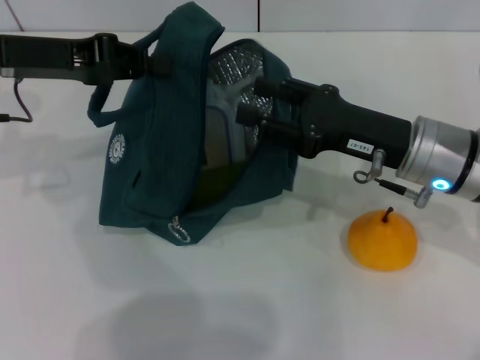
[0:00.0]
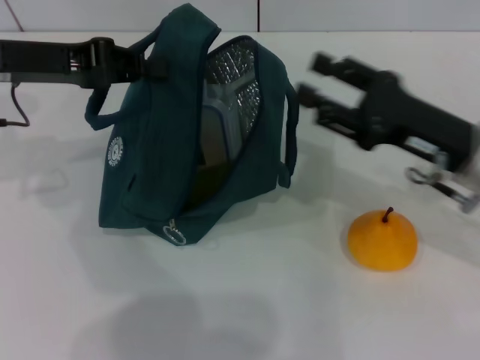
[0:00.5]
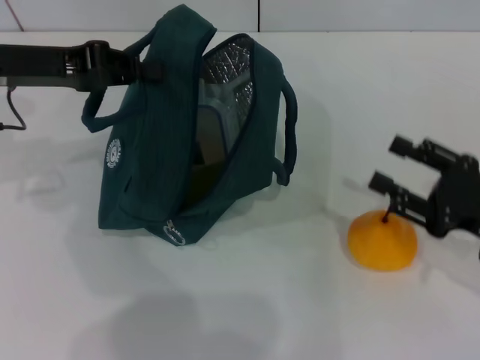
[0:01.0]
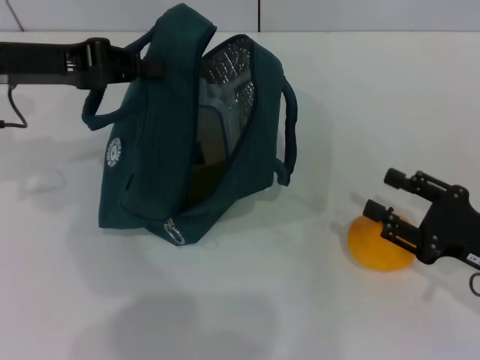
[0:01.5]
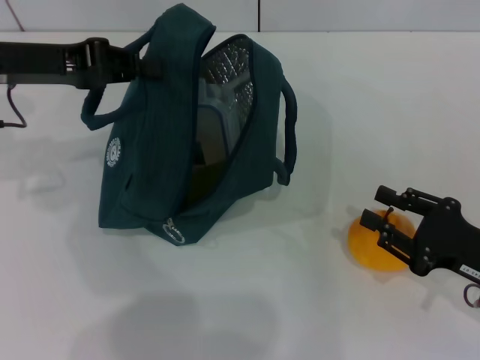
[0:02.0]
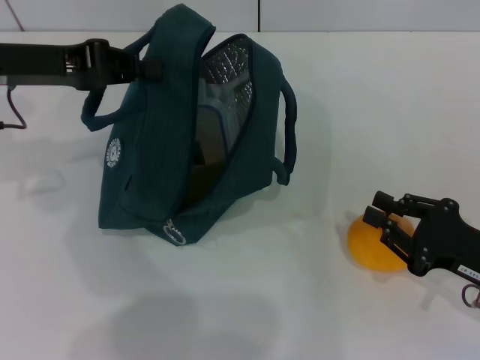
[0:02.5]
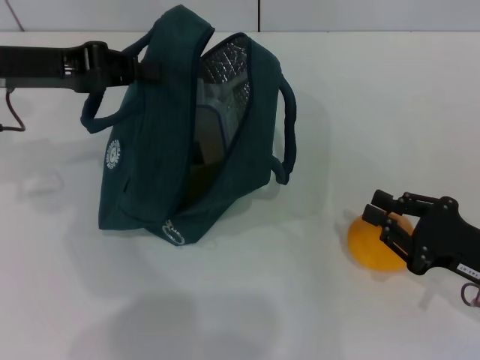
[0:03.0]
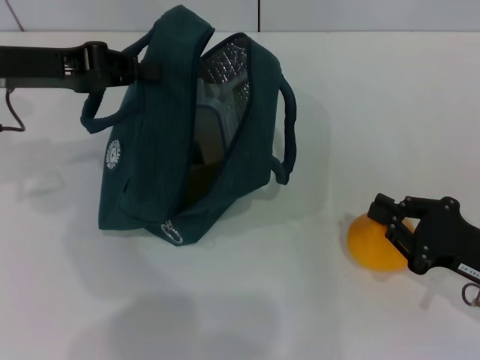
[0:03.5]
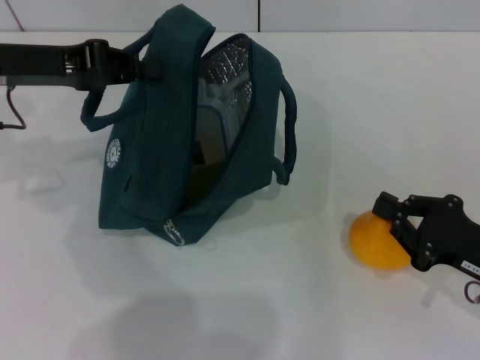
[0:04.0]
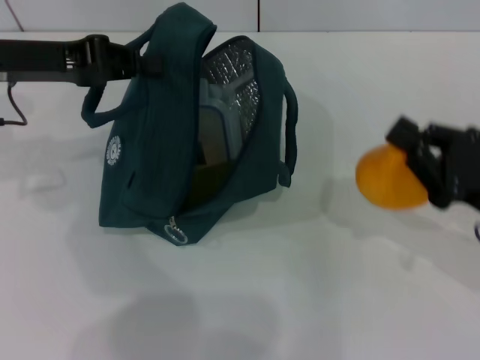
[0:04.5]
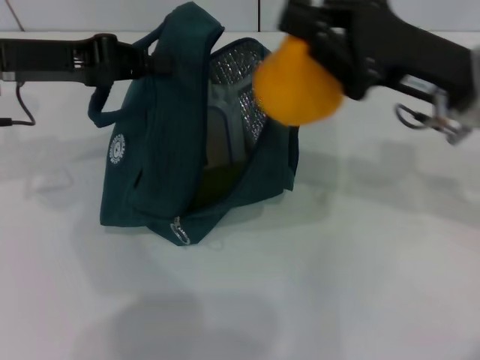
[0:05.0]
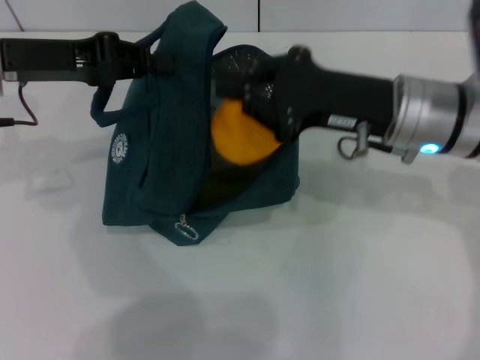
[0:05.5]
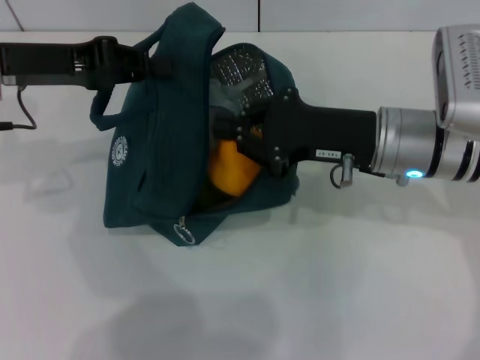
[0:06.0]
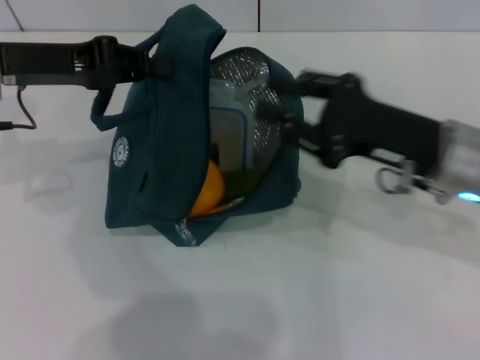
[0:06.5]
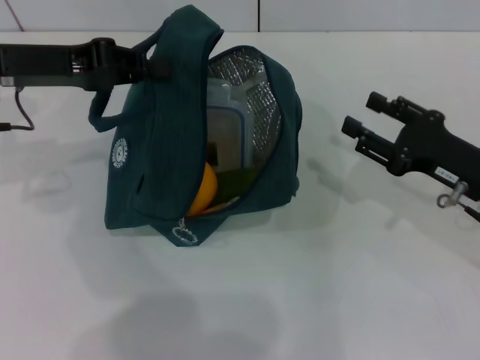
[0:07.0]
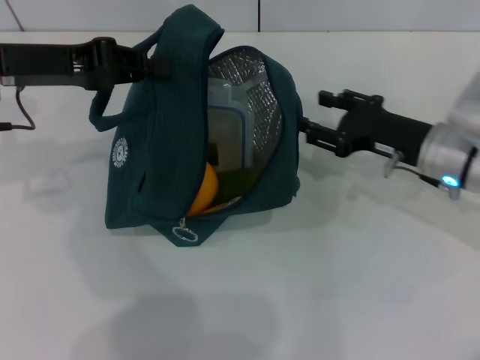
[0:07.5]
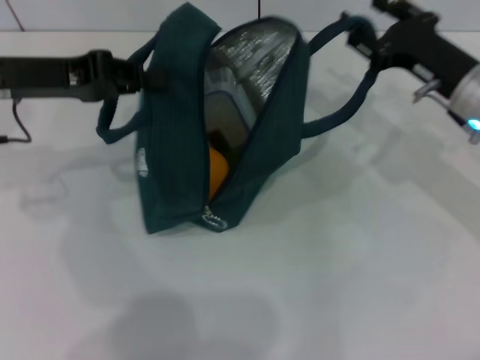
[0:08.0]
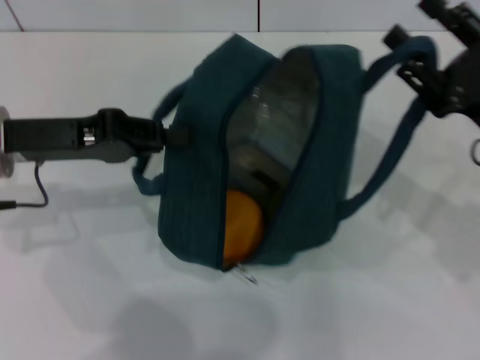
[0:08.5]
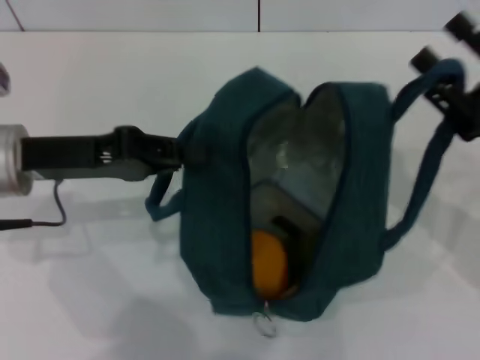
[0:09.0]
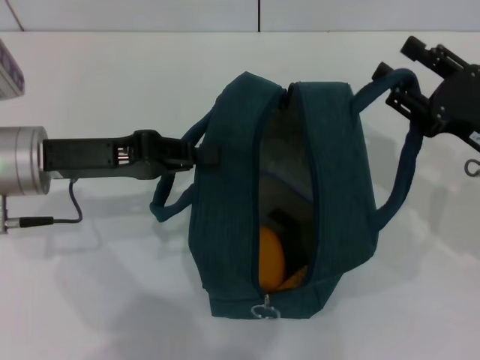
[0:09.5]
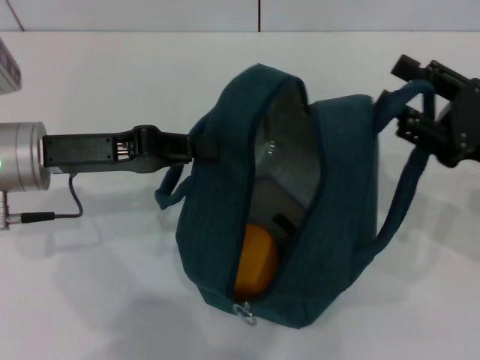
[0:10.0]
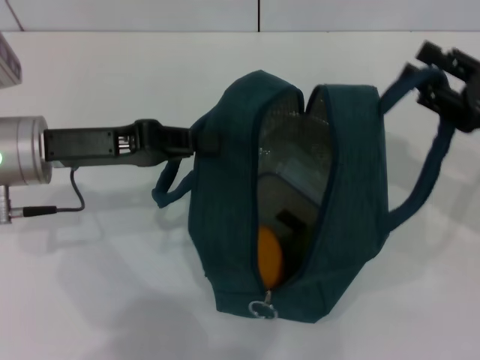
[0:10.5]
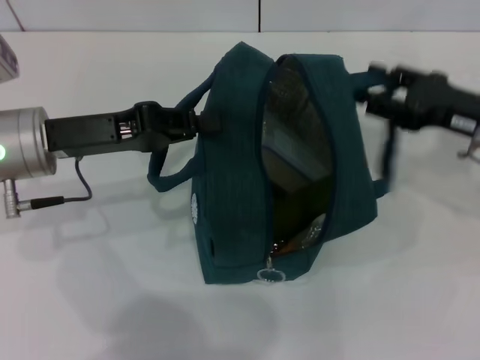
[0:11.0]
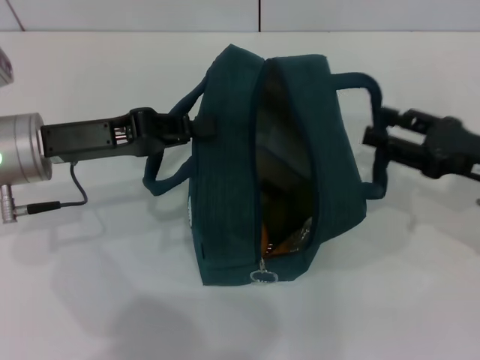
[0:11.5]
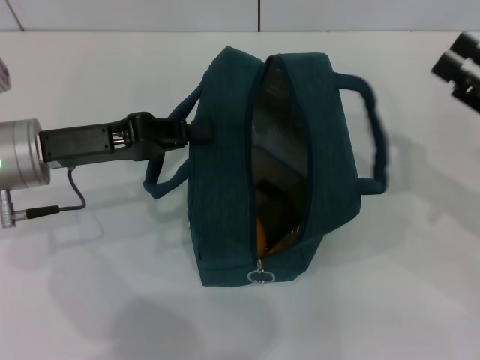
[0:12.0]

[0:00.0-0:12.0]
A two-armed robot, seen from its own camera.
Step, 0.0 to 3.5 s: Grab the pear with your right hand.
Step, 6.5 to 11.5 s: Hold the lunch bag with your right hand.
0.0 to 2.0 s: The right gripper shifts approximately 15 cm to the right, backward and downward.
2.0 to 4.0 s: The right gripper closes up.
4.0 to 6.0 s: The right gripper goes roughly 20 cm to the left, forward and upward.
6.0 to 8.0 s: The right gripper is displaced to the right by about 10 cm, and opens up.
8.0 to 10.0 s: The left gripper ends up about 5 cm from where it was. Meanwhile the right gripper moves backward, about 10 cm.

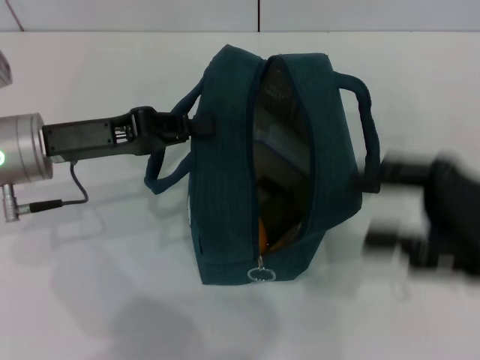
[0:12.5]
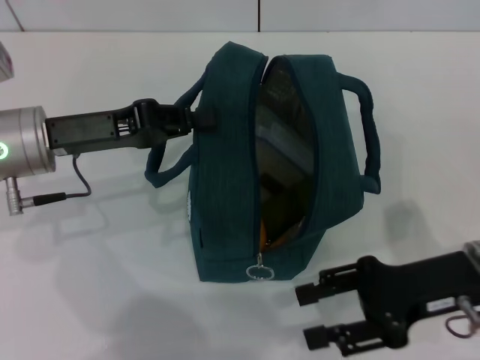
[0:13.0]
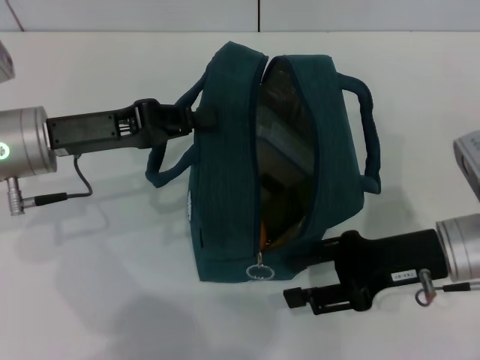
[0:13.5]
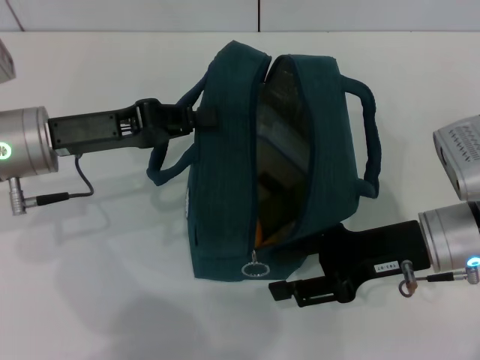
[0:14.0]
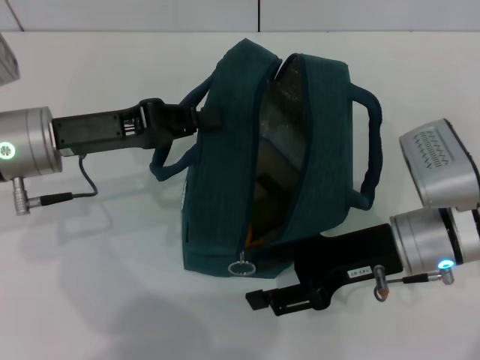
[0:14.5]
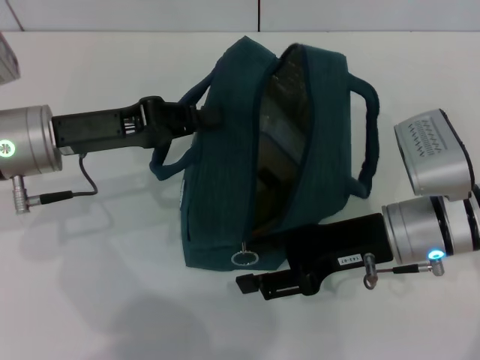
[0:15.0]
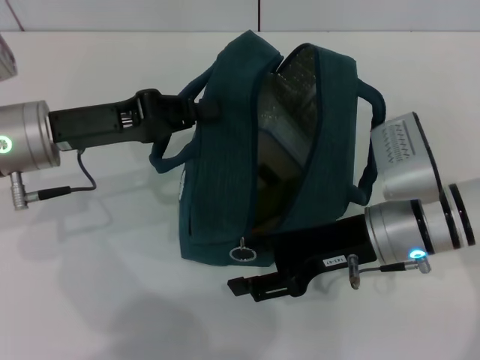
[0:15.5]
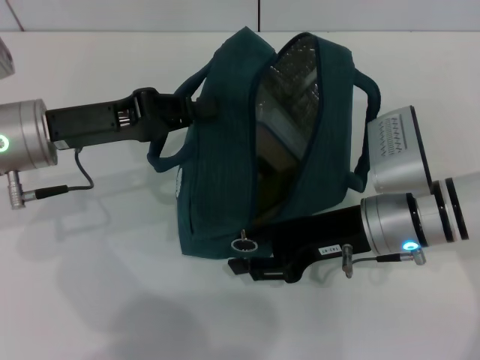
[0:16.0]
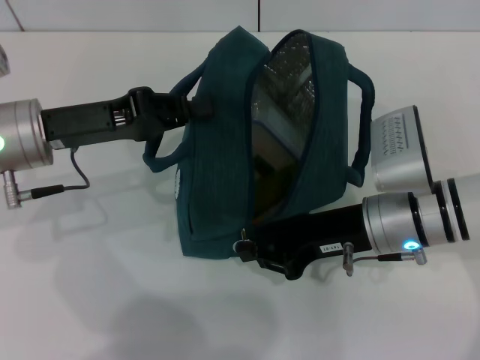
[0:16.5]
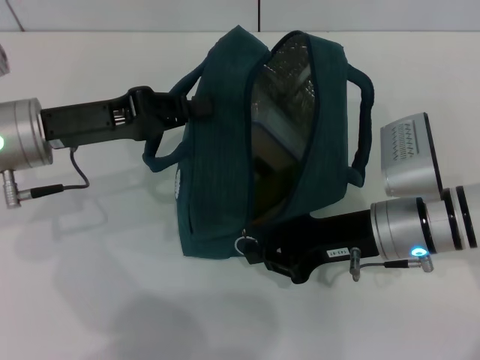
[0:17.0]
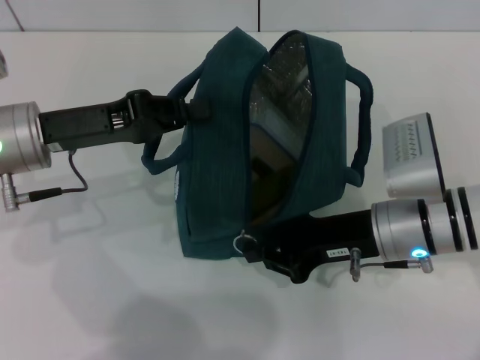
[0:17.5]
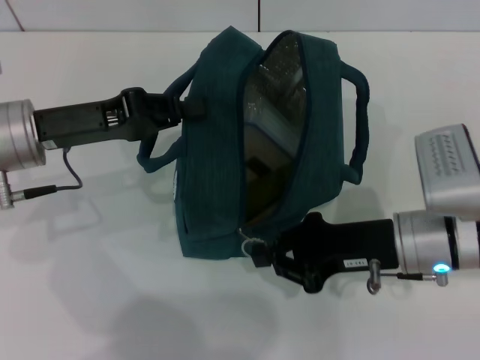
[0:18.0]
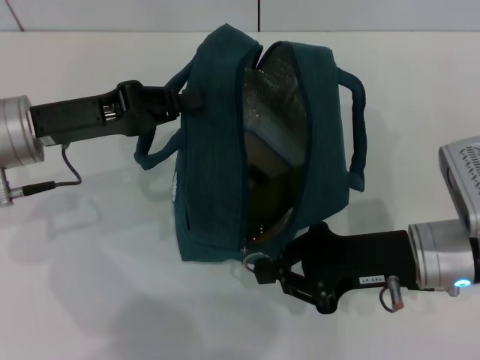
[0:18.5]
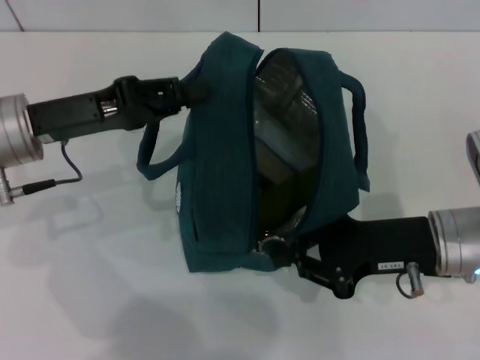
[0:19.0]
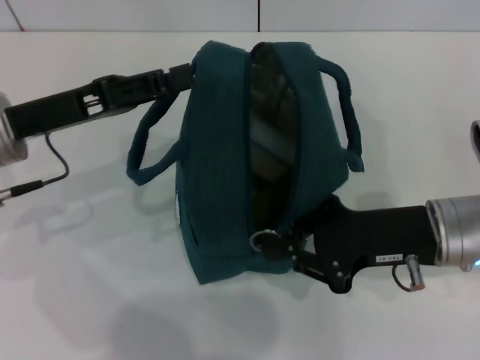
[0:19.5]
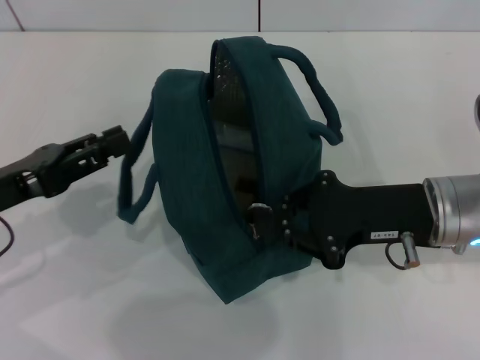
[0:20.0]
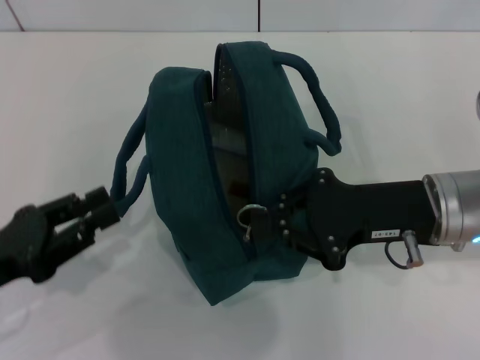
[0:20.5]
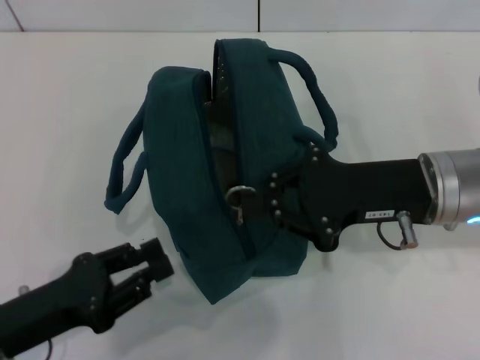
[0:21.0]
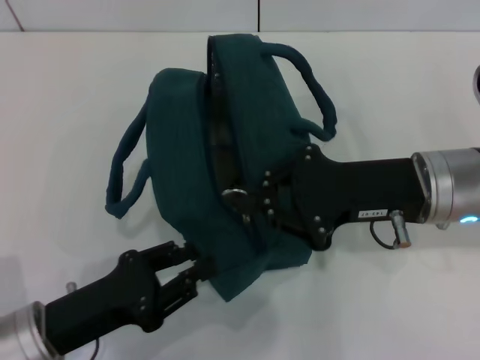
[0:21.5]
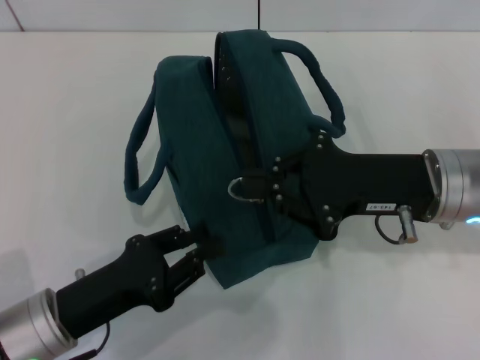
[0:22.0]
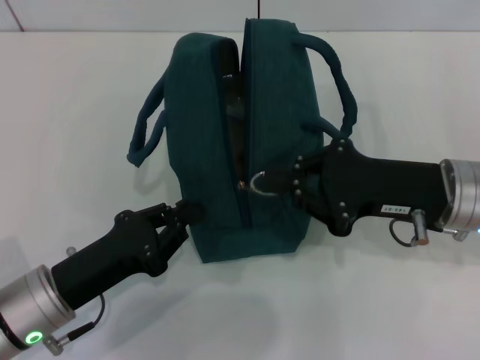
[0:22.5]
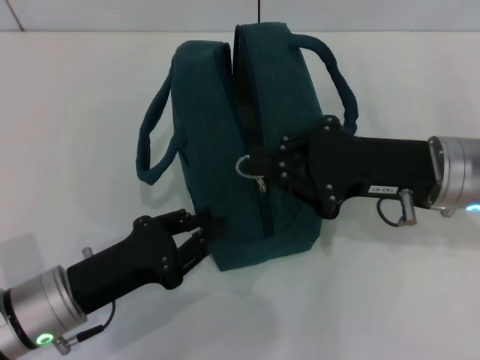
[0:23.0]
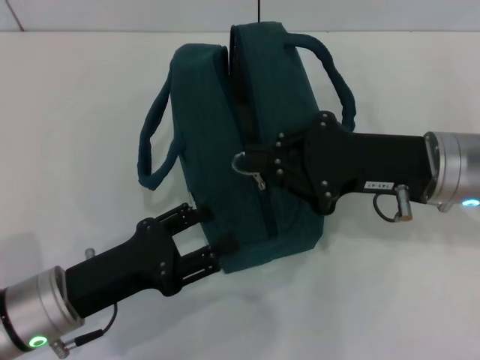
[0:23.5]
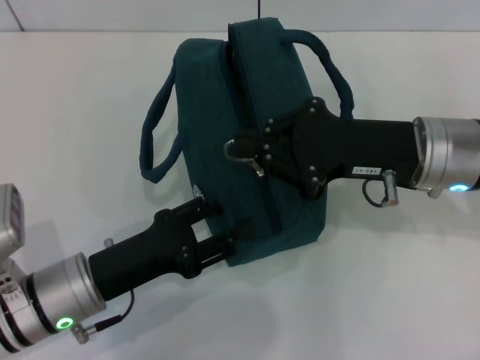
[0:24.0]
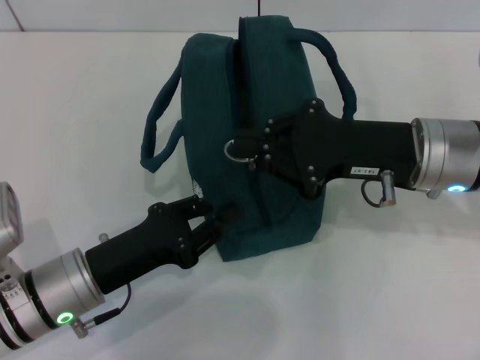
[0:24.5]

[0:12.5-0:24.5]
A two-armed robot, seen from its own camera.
Step, 12.5 to 19.0 s: Hold the lunch bag with your left hand.
12.5 to 14.5 s: The right gripper moves to the left and downward, some 10 cm.
14.5 to 16.5 s: The right gripper closes its fingers.
16.5 to 18.5 s: The right gripper changes place by about 5 cm.
18.5 to 20.5 s: The left gripper travels backward and to the left by some 15 cm, and opens.
20.5 to 22.5 s: The left gripper shifts approximately 10 cm to the right and downward.
22.5 to 24.5 s: The left gripper opens and closes again.

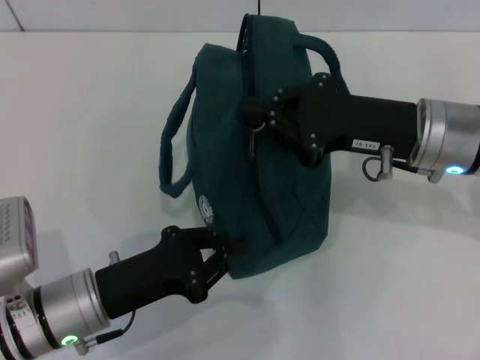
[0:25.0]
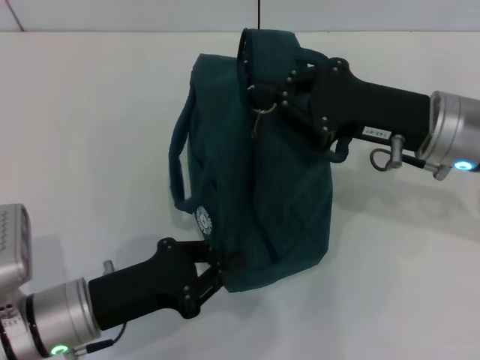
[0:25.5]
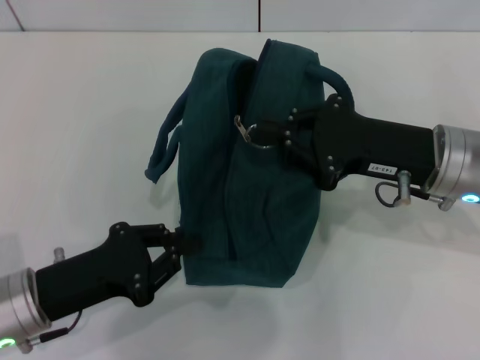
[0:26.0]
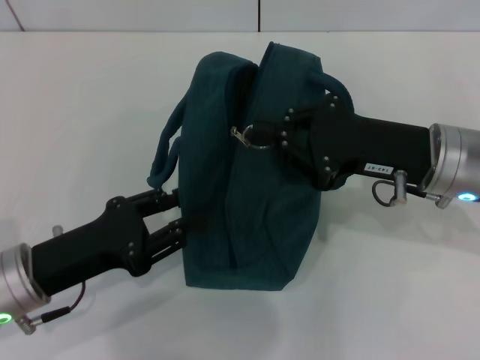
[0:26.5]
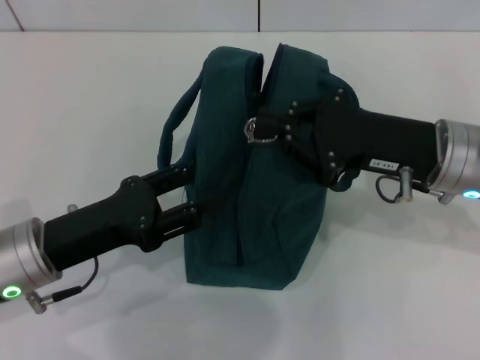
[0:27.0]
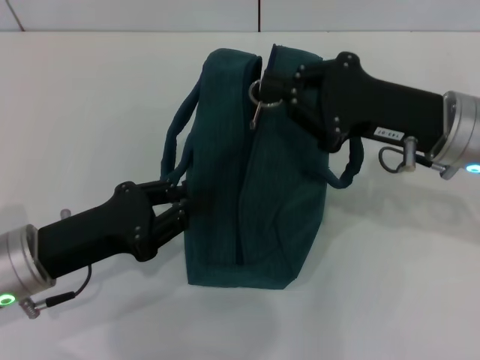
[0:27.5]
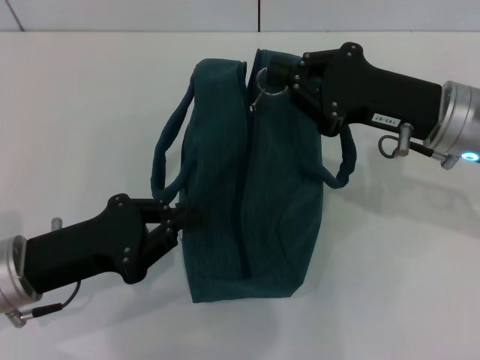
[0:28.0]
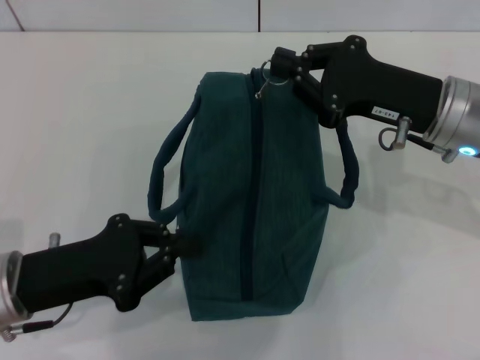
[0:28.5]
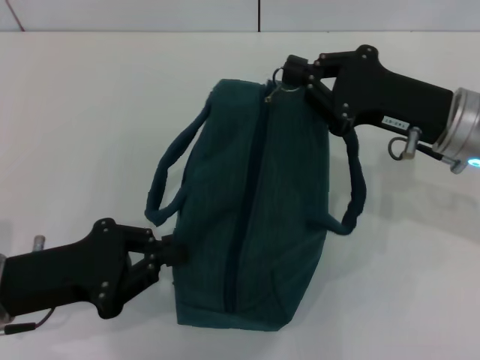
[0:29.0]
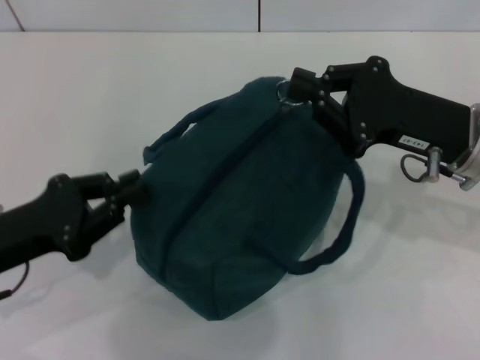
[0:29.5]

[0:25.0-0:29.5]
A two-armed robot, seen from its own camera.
25.0 to 27.0 s: The left gripper ends up approximately 5 cm from where it was, and opens.
27.0 to 29.5 s: The left gripper is displaced to the left by some 5 cm, and closes.
